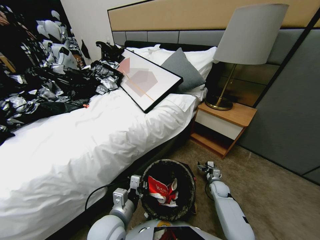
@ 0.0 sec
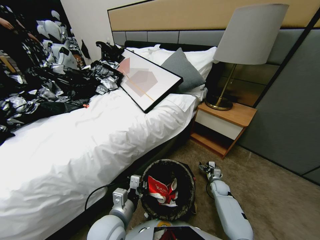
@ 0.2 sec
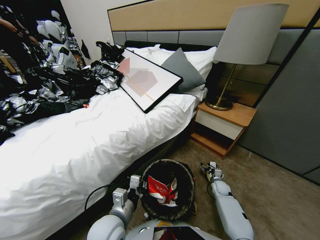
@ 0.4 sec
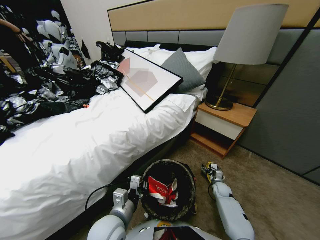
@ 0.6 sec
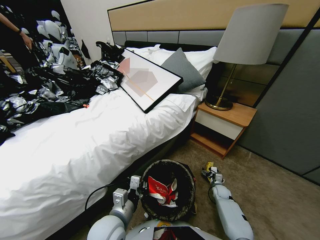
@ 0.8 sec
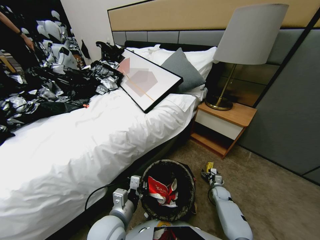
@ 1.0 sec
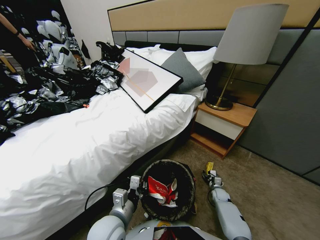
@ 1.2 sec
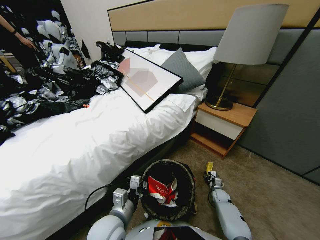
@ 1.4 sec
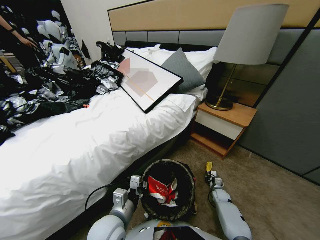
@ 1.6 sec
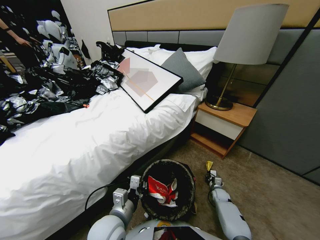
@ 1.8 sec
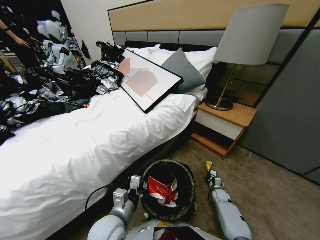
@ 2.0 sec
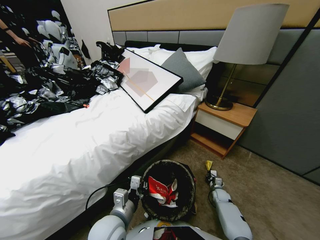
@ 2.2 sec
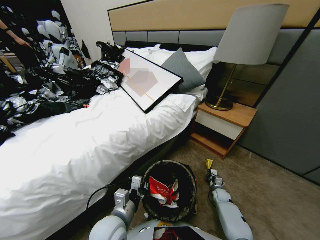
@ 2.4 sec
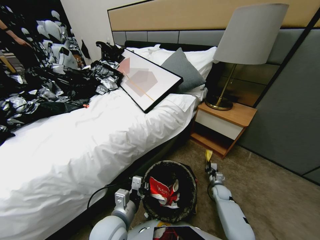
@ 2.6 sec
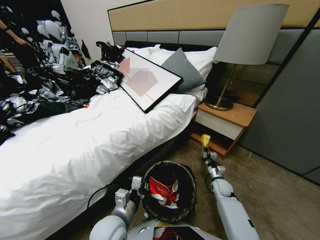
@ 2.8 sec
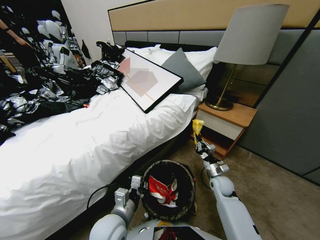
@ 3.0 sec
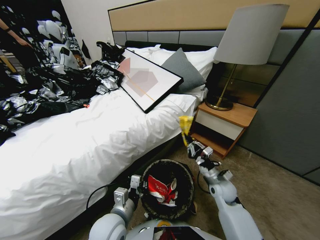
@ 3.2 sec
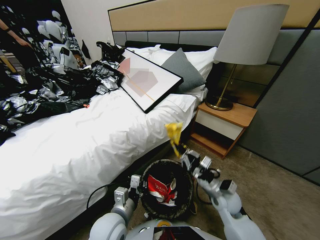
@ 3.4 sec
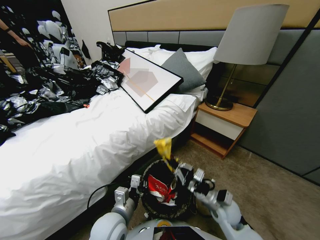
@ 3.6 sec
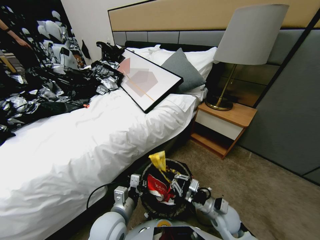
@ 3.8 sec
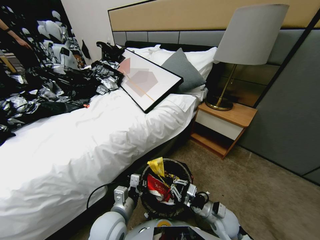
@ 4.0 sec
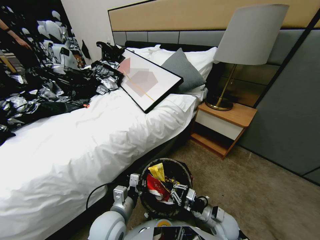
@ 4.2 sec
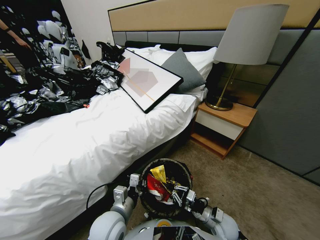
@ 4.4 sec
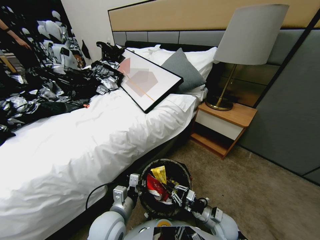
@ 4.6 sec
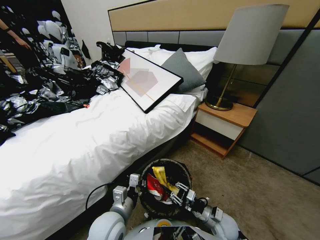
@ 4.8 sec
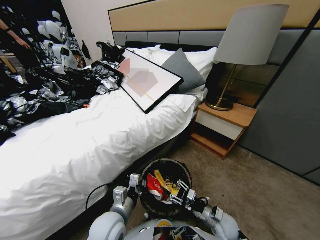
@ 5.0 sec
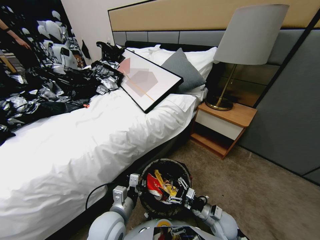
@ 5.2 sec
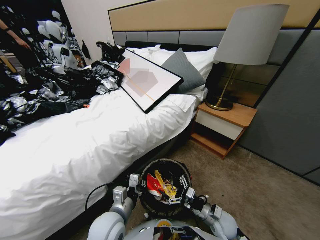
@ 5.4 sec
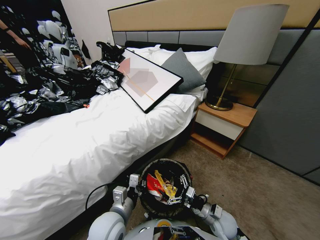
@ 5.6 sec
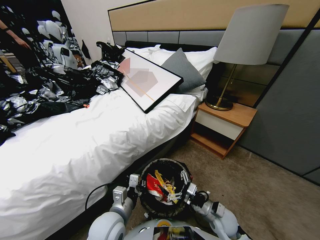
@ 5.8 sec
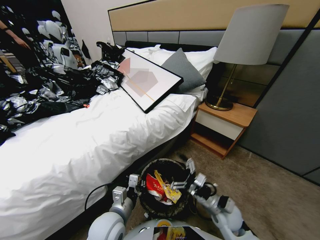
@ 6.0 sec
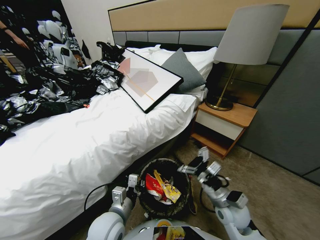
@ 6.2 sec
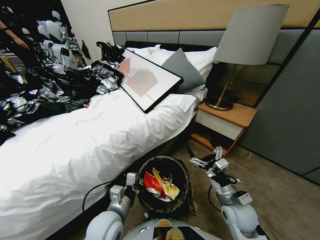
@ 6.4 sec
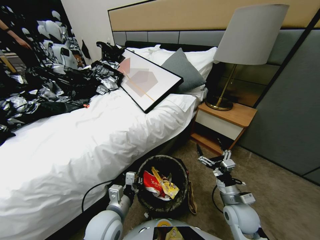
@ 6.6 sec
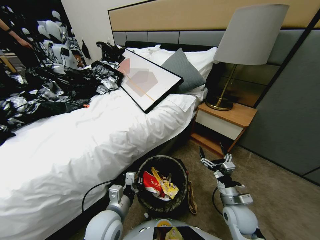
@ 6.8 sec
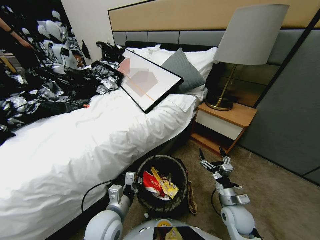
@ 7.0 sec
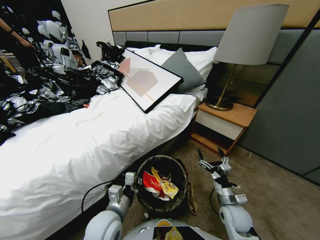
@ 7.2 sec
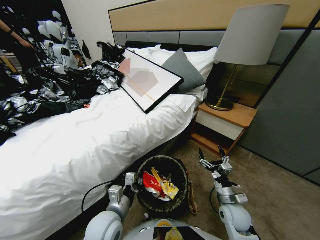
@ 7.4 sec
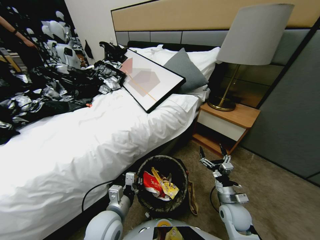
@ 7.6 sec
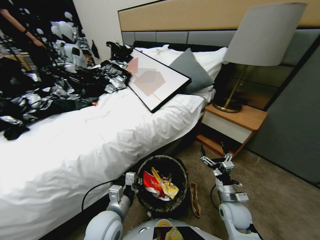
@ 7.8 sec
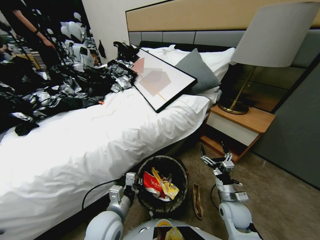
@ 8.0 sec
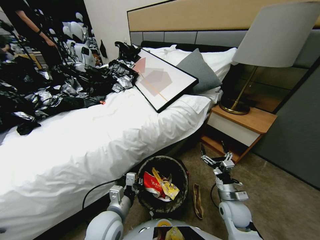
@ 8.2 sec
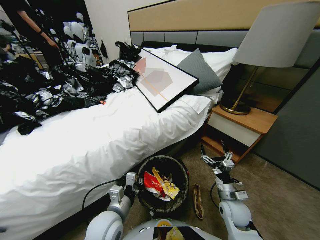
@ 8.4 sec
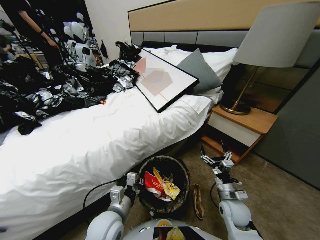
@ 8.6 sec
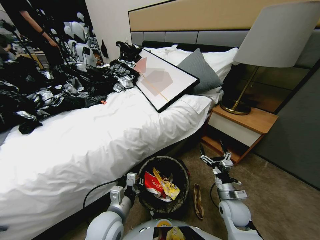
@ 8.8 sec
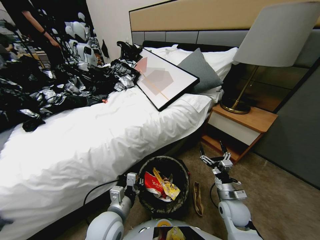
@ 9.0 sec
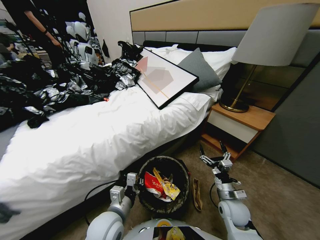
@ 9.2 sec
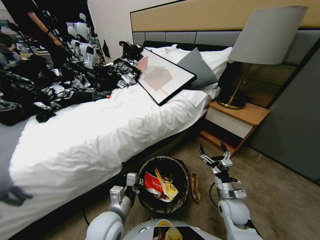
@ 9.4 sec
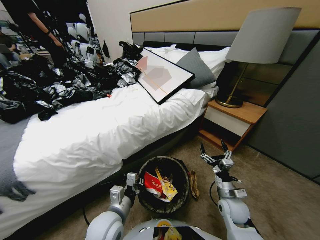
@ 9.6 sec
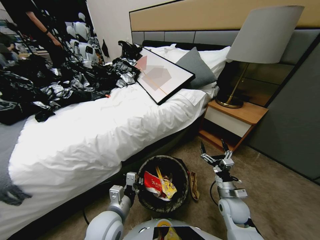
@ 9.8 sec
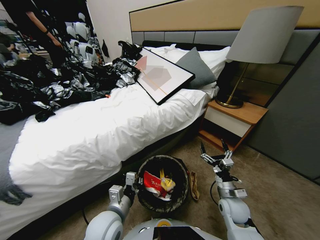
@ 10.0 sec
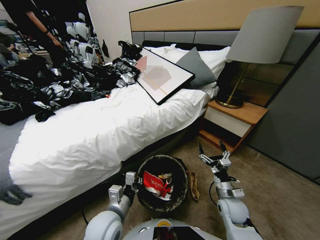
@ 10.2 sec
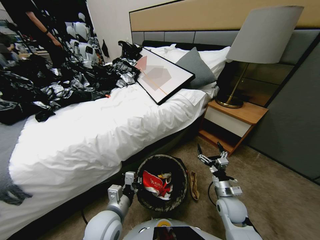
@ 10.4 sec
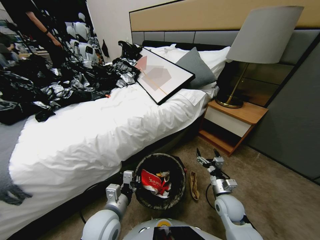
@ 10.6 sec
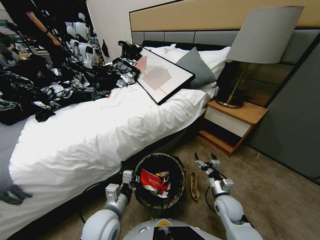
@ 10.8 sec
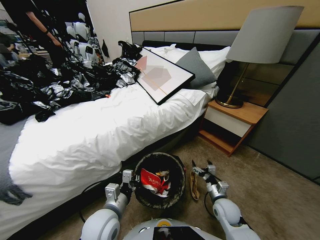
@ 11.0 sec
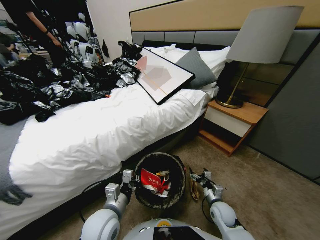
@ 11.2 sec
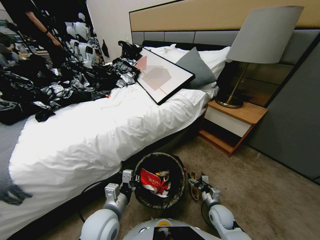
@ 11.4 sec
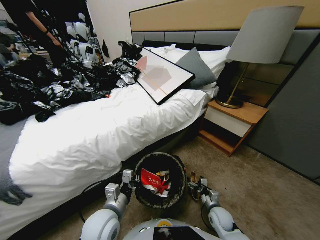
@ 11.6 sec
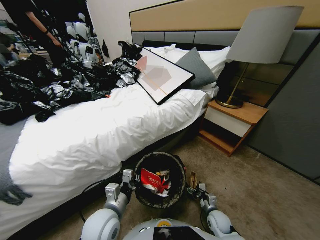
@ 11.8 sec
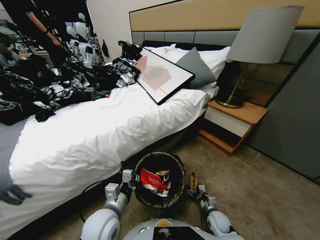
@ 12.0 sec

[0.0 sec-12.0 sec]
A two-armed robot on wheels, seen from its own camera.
Task of the whole recording: Pick up the trash bin, then pick up the garbage from the floor and place it into the trash bin.
0.0 sec to 1.6 sec: The right gripper heads downward, covering approximately 5 cm, and closes its fingers.
1.6 sec to 3.0 sec: The right gripper goes about 25 cm upward and to the left.
3.0 sec to 4.4 sec: The right gripper is displaced backward and downward by some 15 cm.
4.4 sec to 6.0 sec: The right gripper shifts approximately 10 cm upward, and opens up.
6.0 sec to 7.6 sec: The right gripper moves roughly 5 cm upward and comes back.
10.4 sec to 12.0 sec: The right gripper shifts some 20 cm downward.

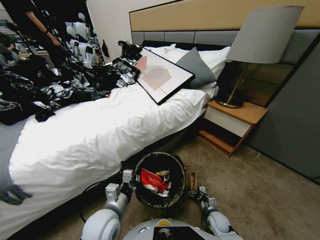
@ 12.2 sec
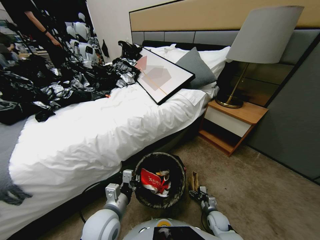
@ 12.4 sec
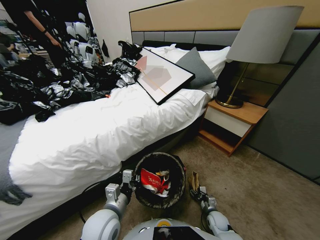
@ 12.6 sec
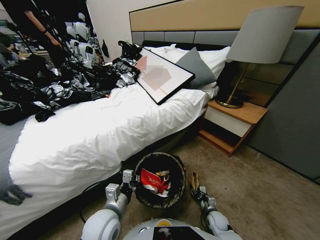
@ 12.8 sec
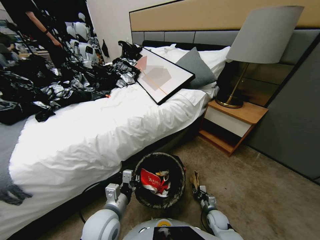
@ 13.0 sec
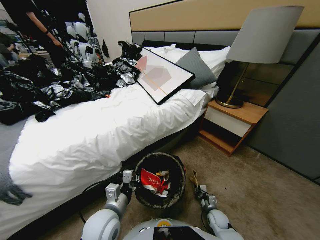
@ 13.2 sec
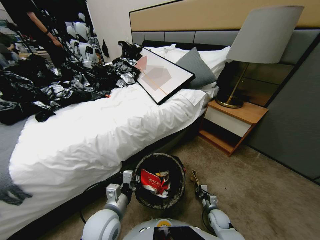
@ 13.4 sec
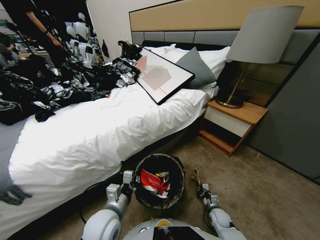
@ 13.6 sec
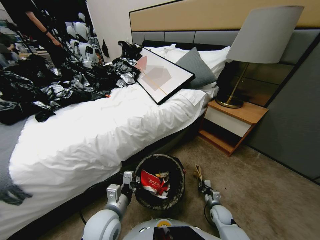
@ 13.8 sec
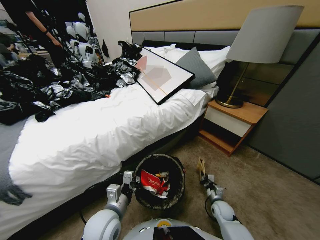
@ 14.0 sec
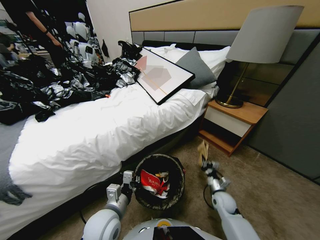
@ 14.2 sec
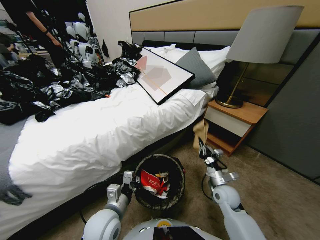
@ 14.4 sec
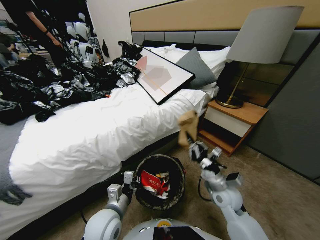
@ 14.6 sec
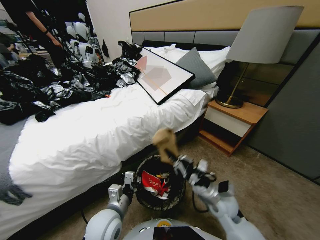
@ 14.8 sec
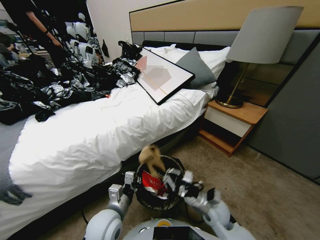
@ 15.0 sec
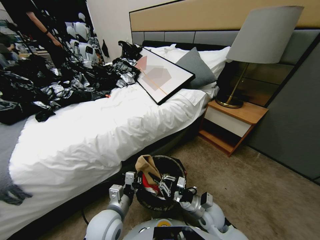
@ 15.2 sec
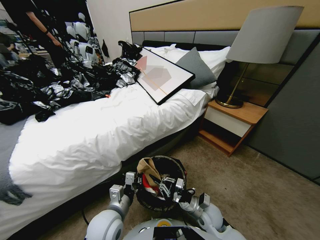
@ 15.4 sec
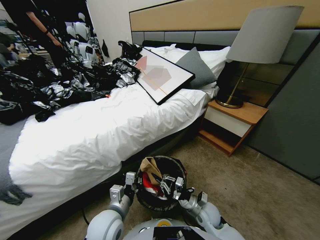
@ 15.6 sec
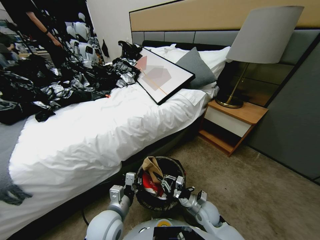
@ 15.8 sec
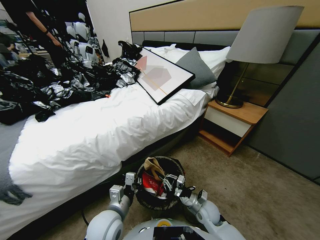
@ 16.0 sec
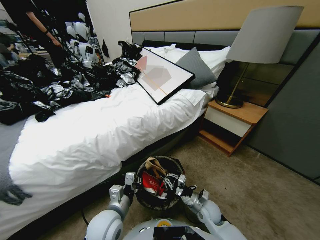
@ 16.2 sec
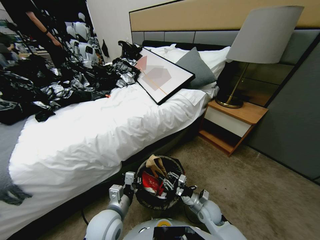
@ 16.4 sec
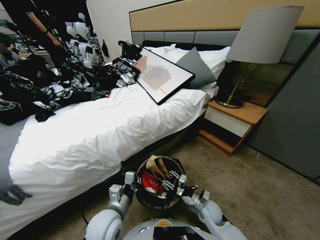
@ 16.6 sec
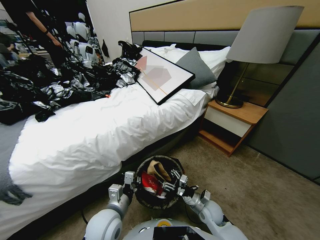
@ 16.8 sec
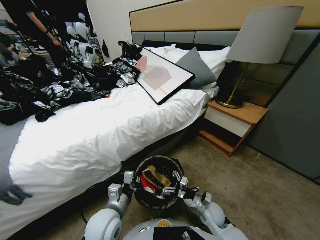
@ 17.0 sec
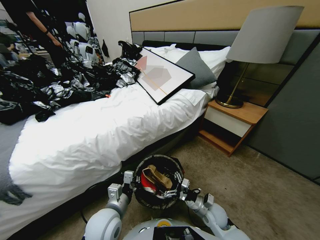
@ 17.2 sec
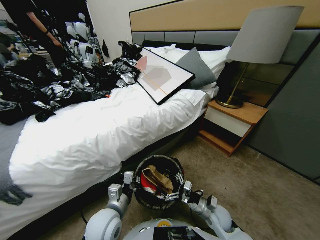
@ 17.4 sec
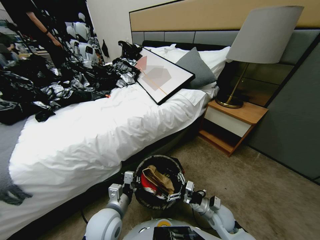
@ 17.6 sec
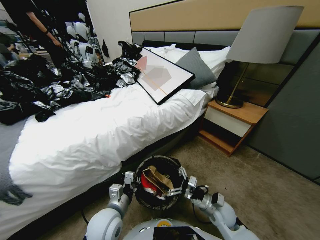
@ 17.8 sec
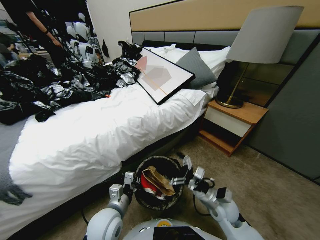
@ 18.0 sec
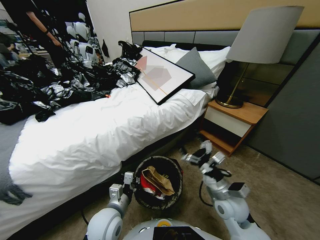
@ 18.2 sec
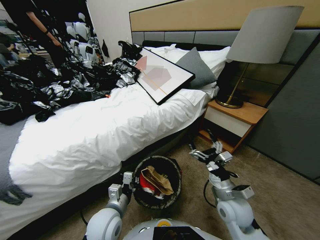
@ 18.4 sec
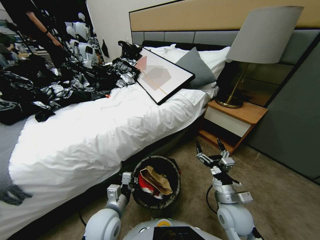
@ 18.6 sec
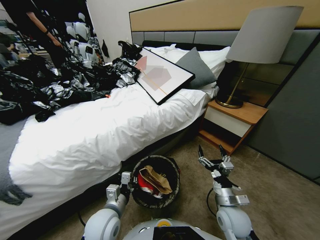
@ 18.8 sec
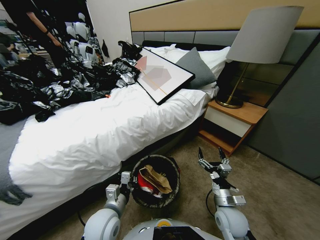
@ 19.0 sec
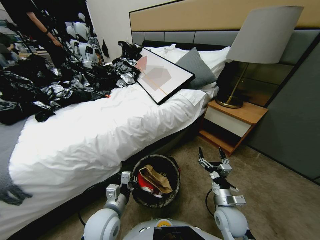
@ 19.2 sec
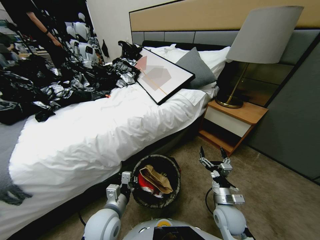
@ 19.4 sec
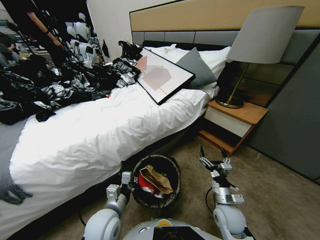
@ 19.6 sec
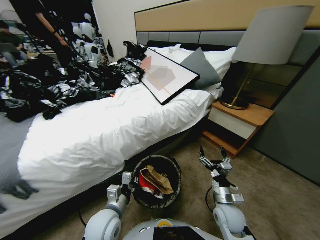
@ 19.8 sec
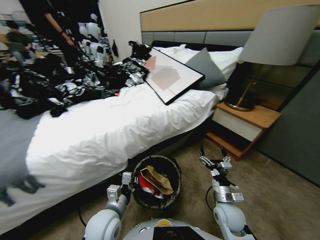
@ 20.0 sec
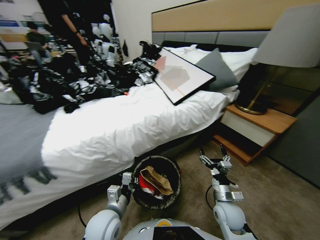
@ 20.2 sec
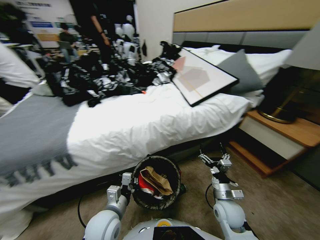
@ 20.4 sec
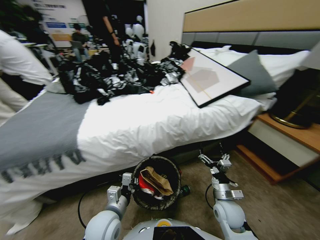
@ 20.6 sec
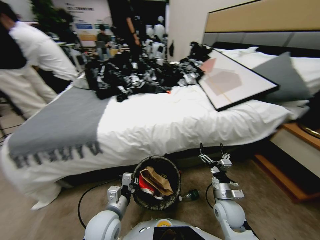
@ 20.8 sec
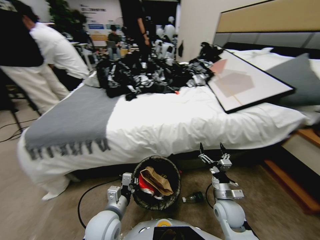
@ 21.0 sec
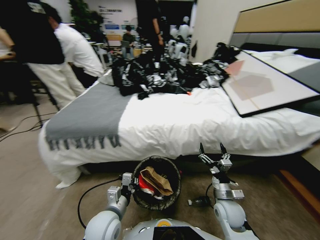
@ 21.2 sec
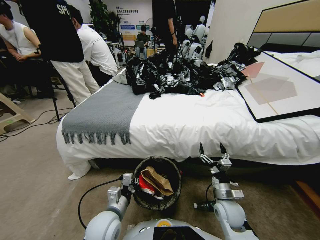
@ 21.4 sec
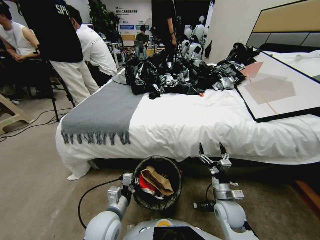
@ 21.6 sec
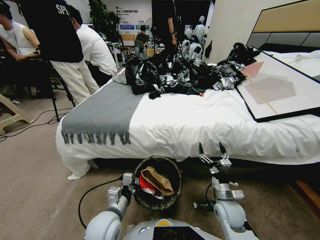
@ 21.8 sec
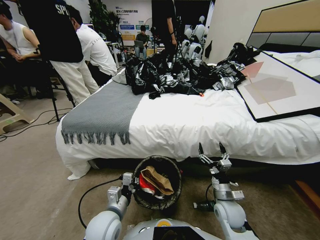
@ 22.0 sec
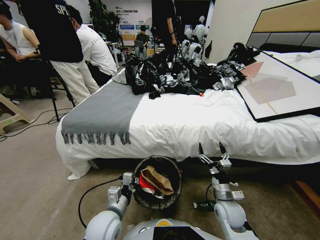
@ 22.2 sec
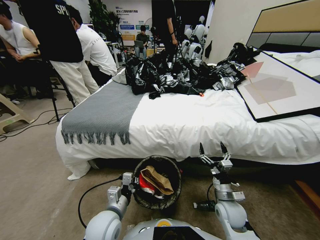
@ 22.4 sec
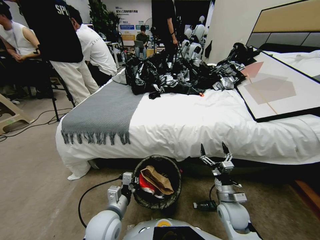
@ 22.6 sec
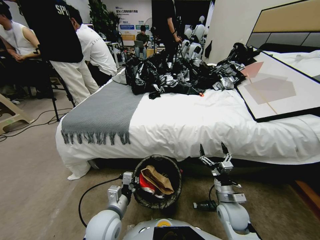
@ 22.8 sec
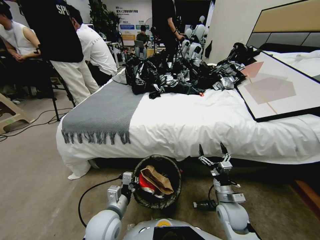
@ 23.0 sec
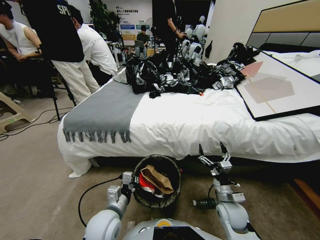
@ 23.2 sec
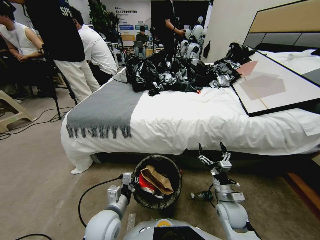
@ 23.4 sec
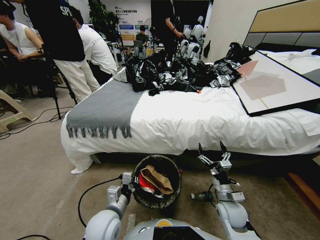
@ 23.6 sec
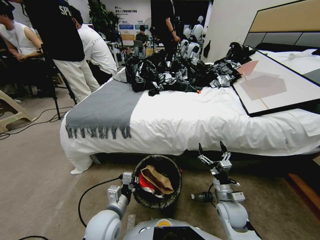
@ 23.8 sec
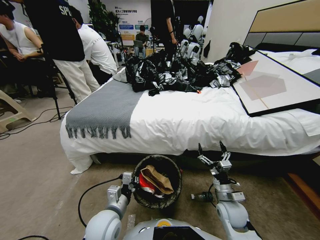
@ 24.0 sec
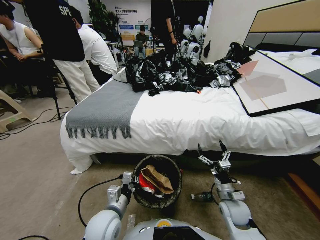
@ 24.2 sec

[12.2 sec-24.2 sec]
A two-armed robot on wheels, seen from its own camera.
Task of the whole recording: Pick up the trash bin, then pick up the garbage from the floor and place it into the trash bin.
12.2 sec to 13.8 sec: The right gripper closes up.
13.8 sec to 15.2 sec: The right gripper moves upward and to the left, approximately 20 cm.
15.2 sec to 16.6 sec: The right gripper changes place by some 5 cm, and opens.
16.6 sec to 18.2 sec: The right gripper travels upward by some 15 cm, and opens its fingers.
18.2 sec to 19.8 sec: The right gripper shifts some 10 cm downward.
